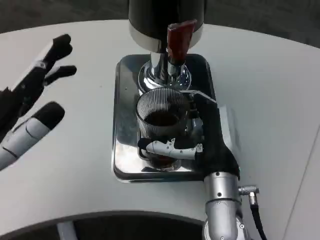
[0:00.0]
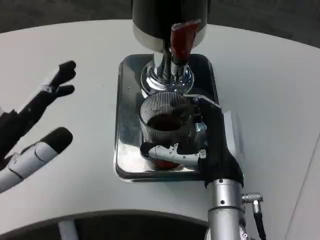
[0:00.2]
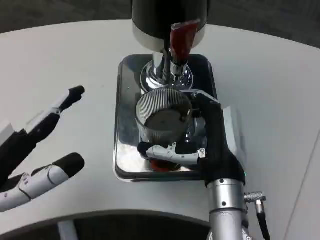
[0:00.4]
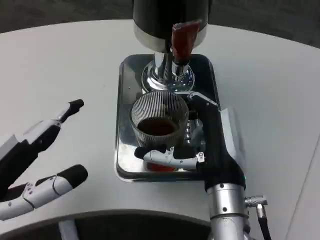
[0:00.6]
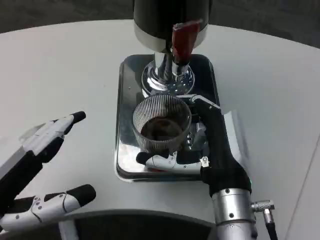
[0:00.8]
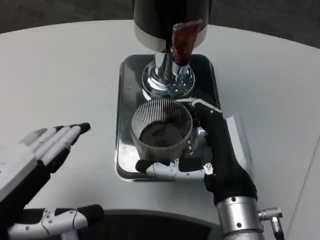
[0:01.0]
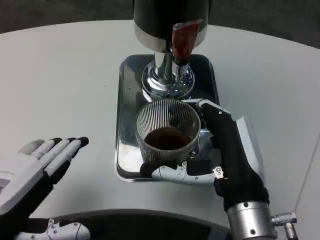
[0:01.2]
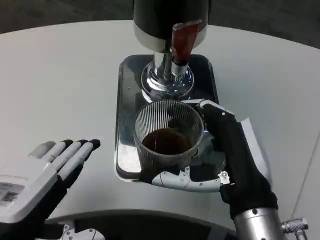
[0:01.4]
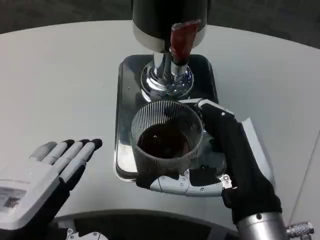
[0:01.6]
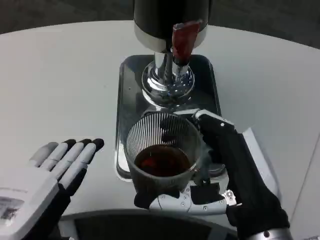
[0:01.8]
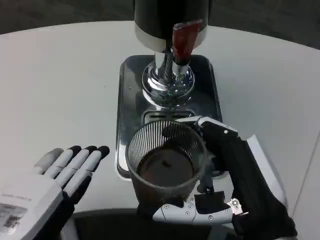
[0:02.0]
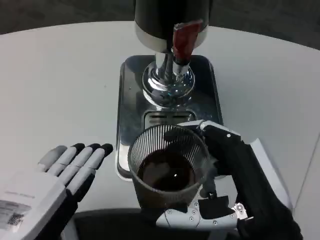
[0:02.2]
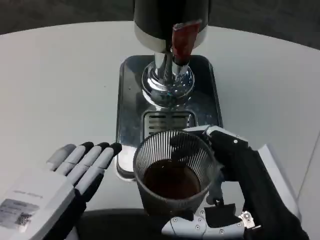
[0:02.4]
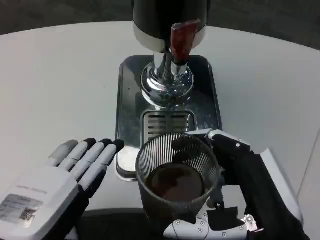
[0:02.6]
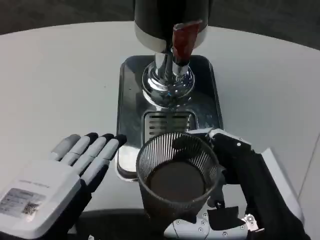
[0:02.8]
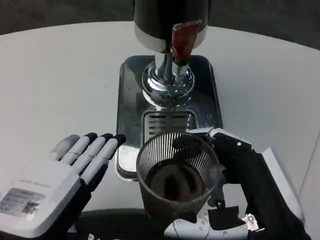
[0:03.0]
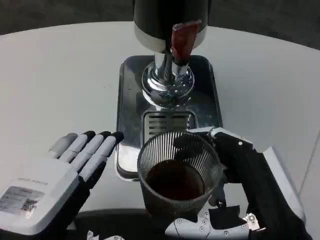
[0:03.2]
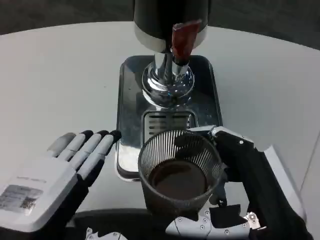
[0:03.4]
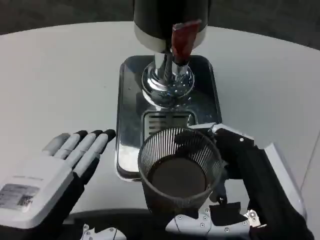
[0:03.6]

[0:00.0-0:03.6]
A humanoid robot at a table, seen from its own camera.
Task of the whole recording: Grasp the cup under the faucet to collect the drink, then remove the cup.
0:00.0 to 0:01.8: The left hand goes about 5 cm backward, while the right hand shifts roughly 10 cm backward.

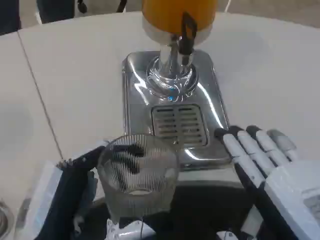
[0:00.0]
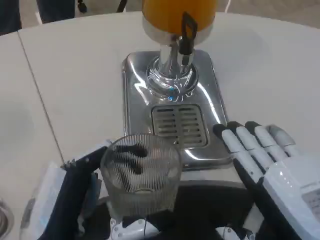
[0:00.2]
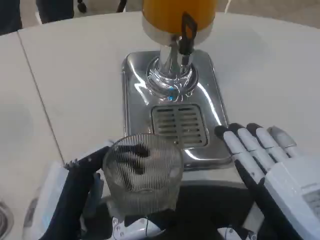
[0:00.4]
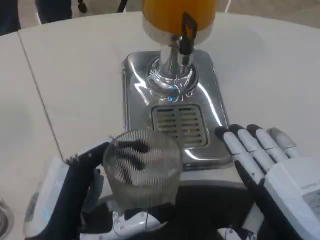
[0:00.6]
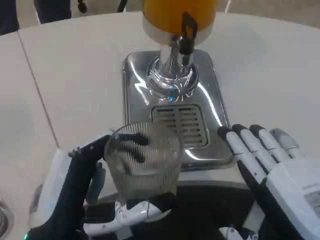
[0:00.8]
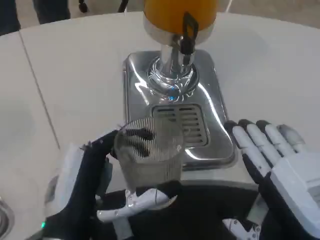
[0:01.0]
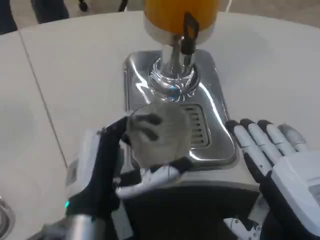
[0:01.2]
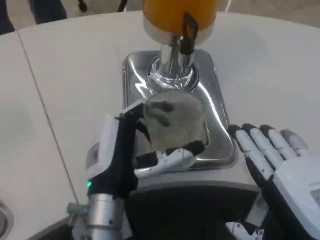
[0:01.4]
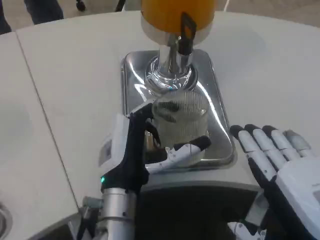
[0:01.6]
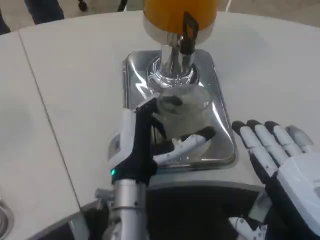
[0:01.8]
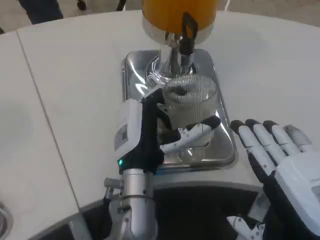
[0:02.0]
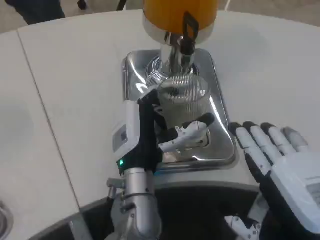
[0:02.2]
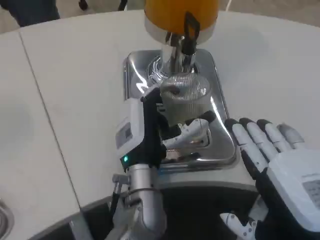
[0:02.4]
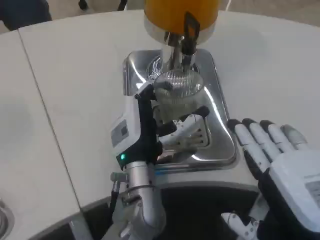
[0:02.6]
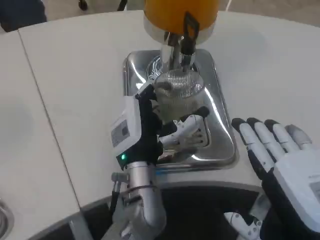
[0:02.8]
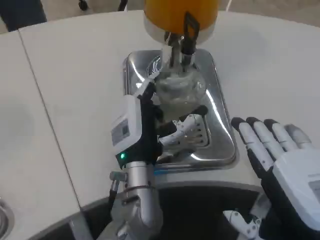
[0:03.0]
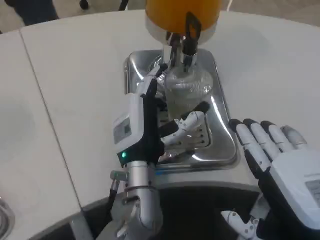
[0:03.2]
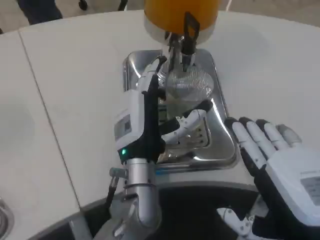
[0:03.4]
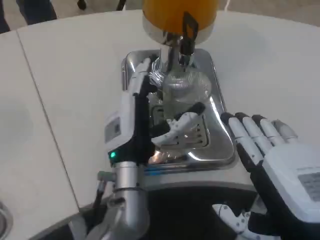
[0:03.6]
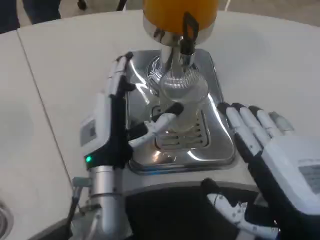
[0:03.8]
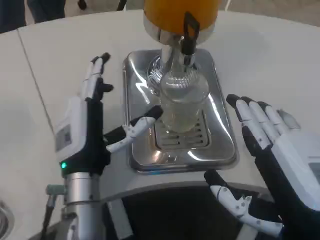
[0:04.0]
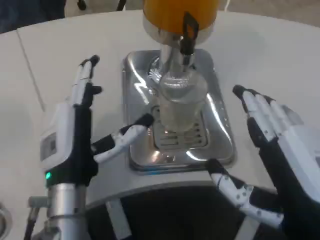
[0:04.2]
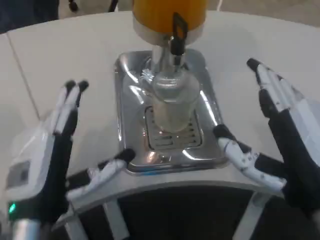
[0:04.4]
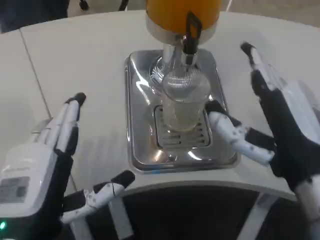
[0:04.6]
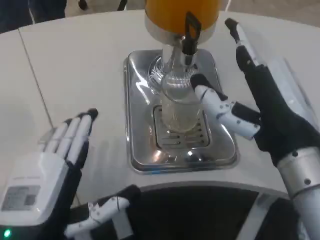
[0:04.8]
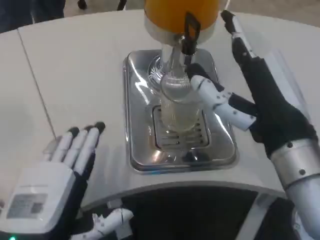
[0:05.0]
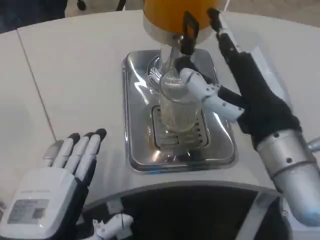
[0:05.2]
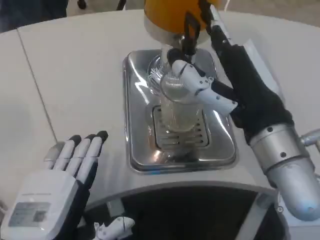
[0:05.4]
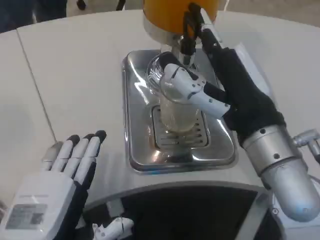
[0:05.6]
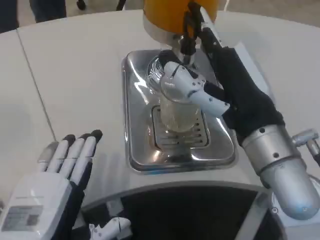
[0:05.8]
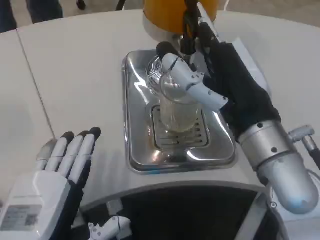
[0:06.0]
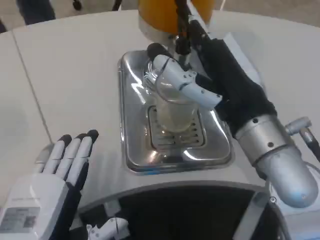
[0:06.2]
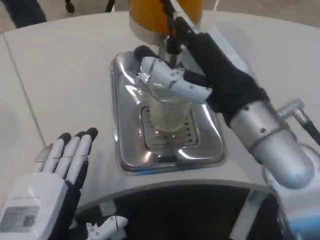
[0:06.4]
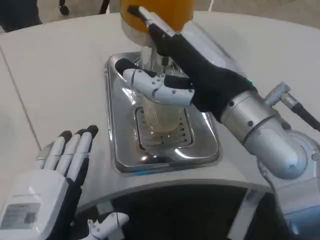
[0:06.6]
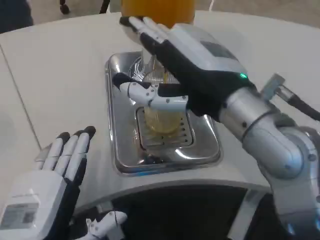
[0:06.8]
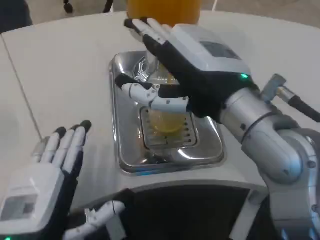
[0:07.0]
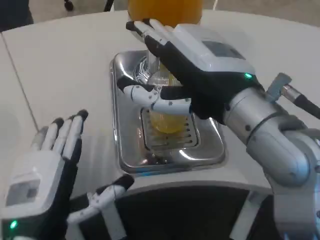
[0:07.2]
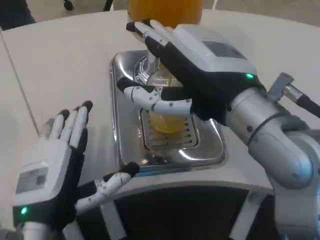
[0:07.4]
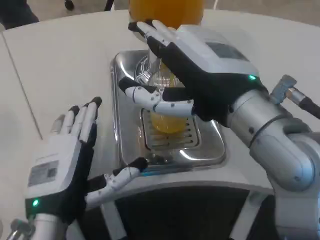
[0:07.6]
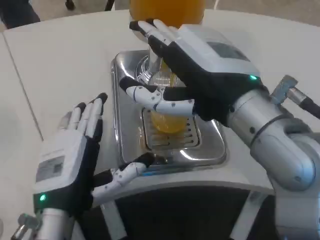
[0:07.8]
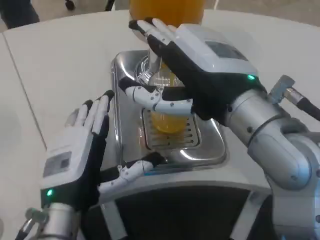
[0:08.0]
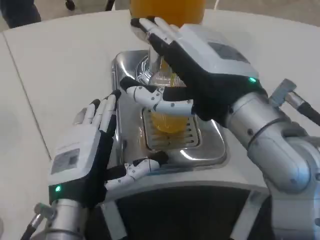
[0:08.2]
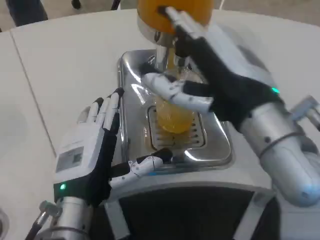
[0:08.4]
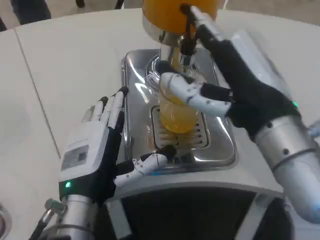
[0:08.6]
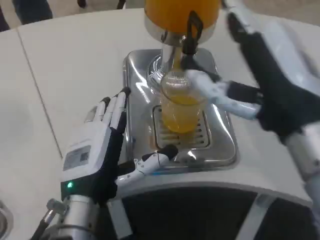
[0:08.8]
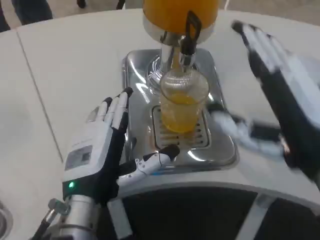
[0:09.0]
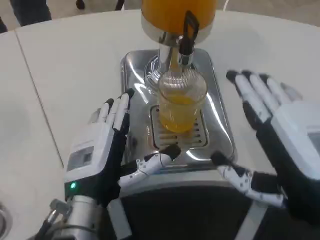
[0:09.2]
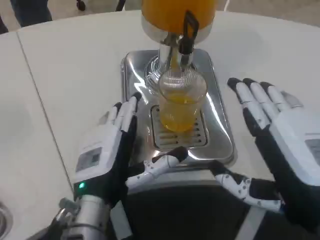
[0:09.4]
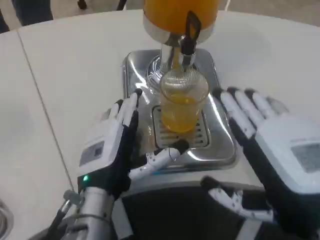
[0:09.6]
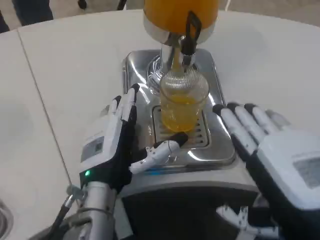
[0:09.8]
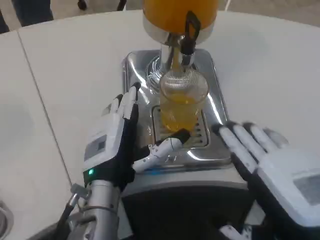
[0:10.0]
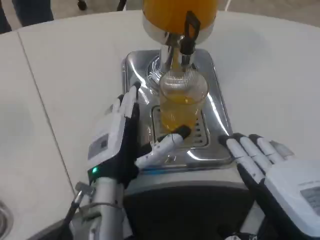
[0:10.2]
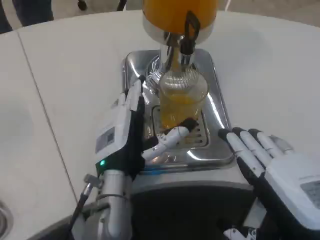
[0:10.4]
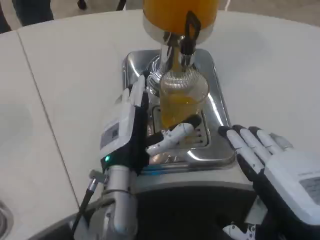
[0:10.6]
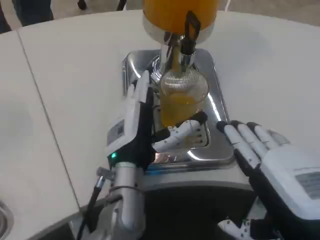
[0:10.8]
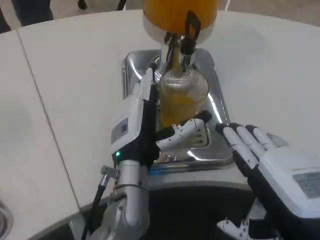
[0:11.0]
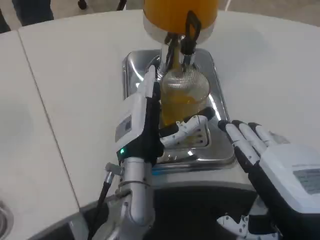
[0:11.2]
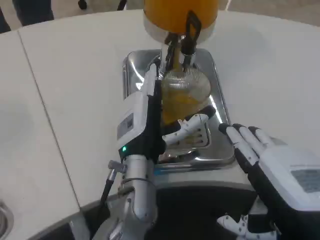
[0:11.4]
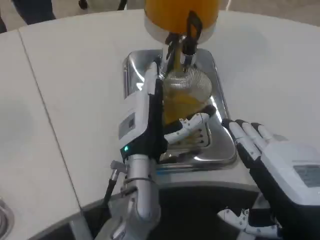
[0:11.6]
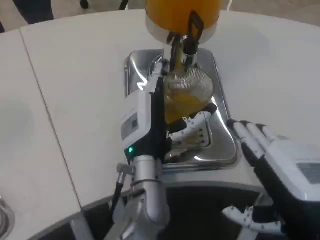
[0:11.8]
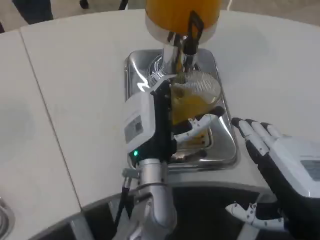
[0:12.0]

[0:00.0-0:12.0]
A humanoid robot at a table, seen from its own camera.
Task of the whole recording: Grasp the cup under the faucet to collect the drink, then remove the cup.
0:00.0 to 0:01.6: The left hand is displaced forward and to the right by about 15 cm.
0:01.6 to 0:03.0: The left hand moves forward, about 5 cm.
0:03.0 to 0:04.4: The left hand shifts about 20 cm to the left and backward.
0:04.4 to 0:06.0: The left hand heads backward, covering some 5 cm, while the right hand heads forward, covering roughly 10 cm.
0:06.0 to 0:07.6: The right hand shifts some 5 cm upward, while the left hand shifts approximately 5 cm forward.
0:07.6 to 0:09.0: The right hand heads to the right, backward and downward, covering roughly 10 cm.
0:09.0 to 0:10.4: The right hand changes place by about 5 cm, while the left hand changes place by roughly 5 cm.
0:10.4 to 0:12.0: The left hand is displaced to the right by about 5 cm.

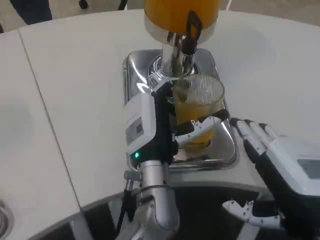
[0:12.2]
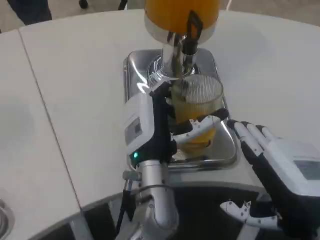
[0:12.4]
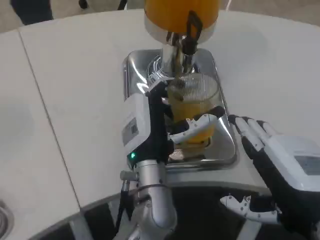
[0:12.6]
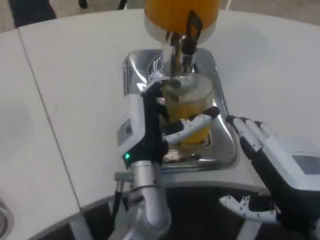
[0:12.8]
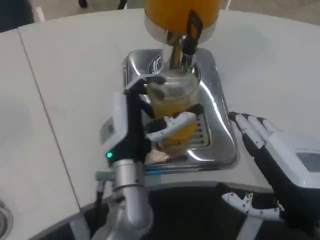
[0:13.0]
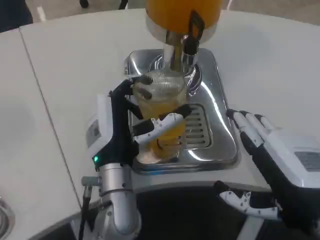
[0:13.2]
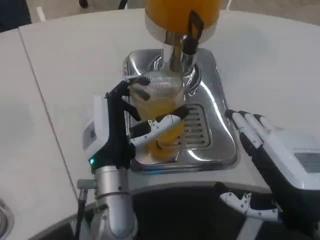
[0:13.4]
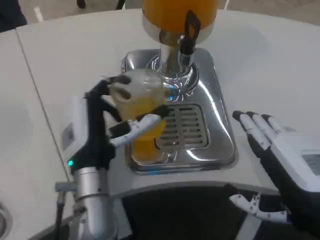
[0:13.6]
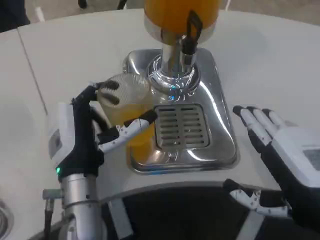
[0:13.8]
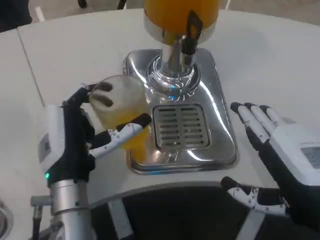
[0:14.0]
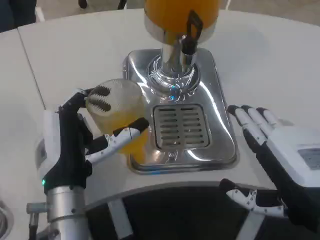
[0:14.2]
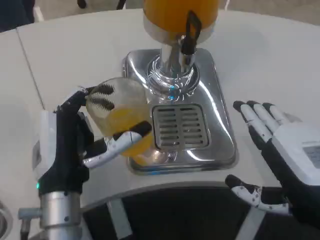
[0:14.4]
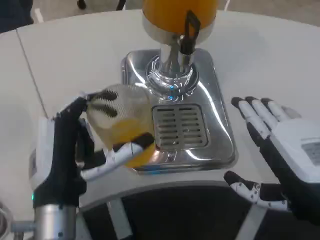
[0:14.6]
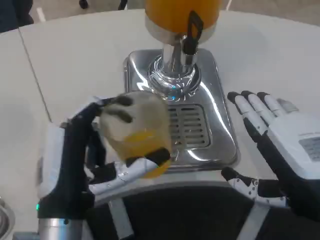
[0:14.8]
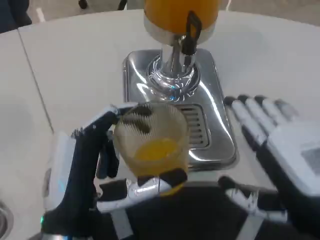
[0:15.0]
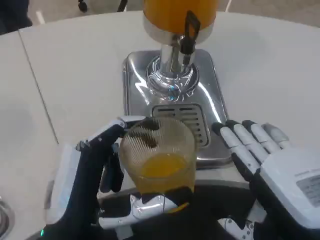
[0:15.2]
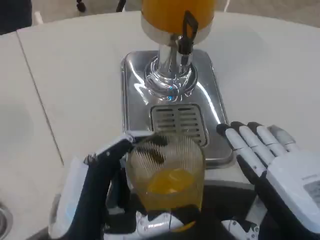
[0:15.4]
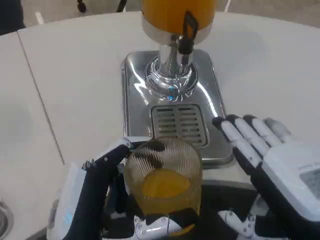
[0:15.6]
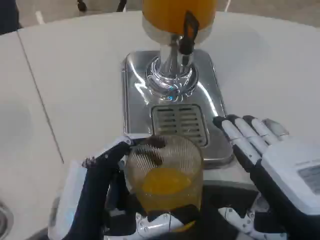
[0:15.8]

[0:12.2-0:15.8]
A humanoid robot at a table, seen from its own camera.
Task of the whole recording: Grasp the cup under the faucet to collect the drink, then remove the cup.
0:12.2 to 0:14.0: The left hand is displaced to the left by roughly 10 cm.
0:14.0 to 0:15.8: The left hand goes approximately 10 cm backward.

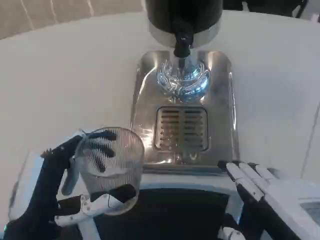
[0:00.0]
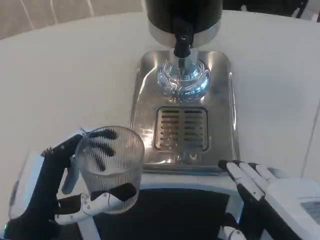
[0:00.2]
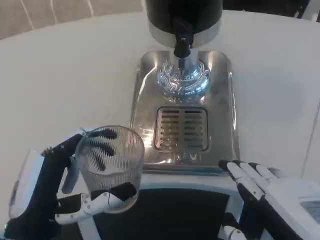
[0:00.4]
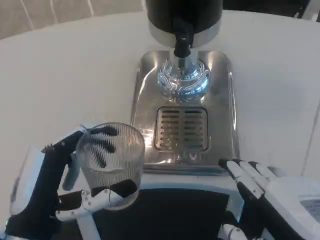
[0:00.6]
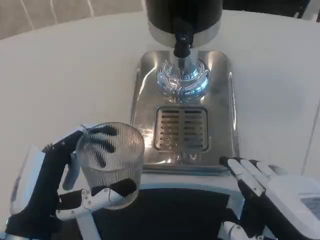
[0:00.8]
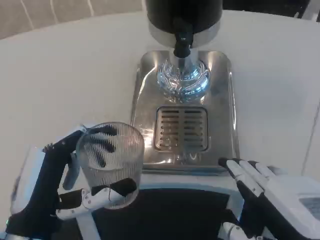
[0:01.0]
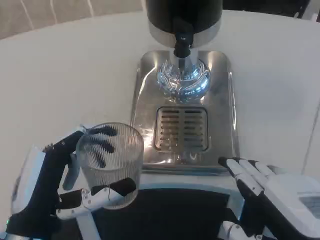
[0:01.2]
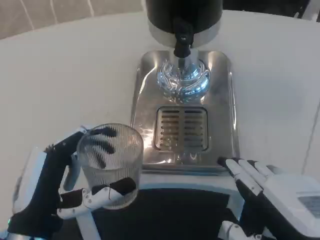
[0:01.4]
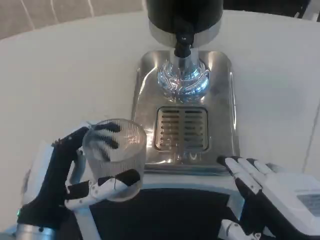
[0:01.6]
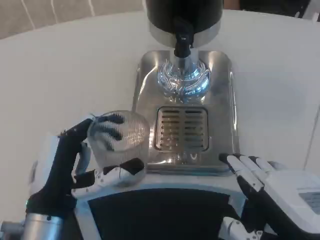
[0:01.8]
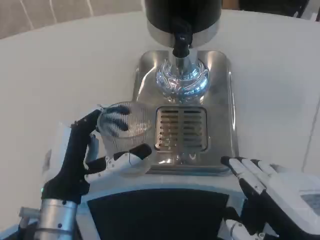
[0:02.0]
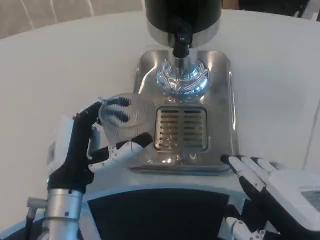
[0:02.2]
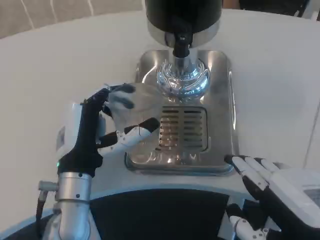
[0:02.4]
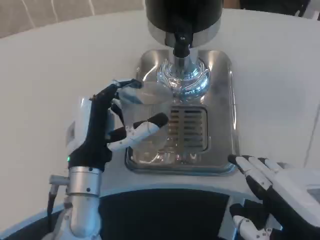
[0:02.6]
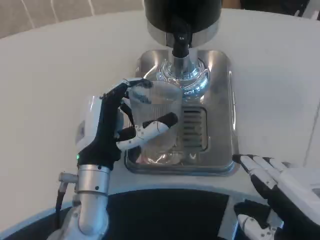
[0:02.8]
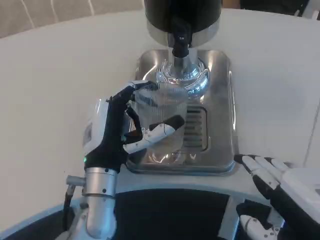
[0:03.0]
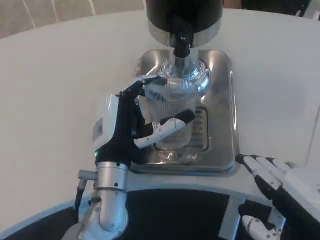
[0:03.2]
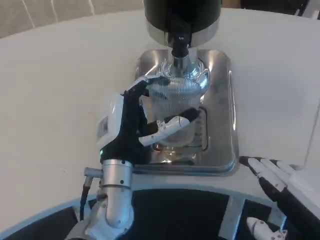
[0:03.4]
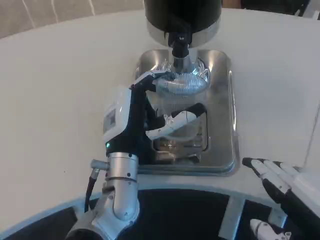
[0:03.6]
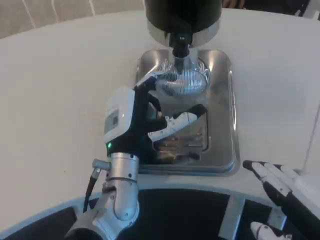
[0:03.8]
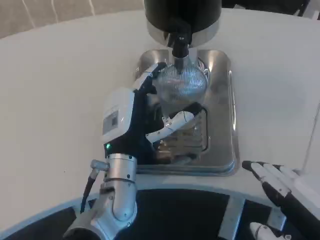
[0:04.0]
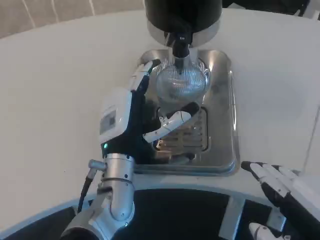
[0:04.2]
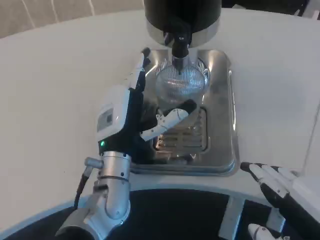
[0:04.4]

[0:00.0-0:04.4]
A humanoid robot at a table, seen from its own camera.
Task of the whole recording: Grasp the cup under the faucet to collect the drink, then remove the cup.
0:00.0 to 0:01.4: Both hands stay about where they are.
0:01.4 to 0:03.0: The left hand heads forward and to the right, covering about 15 cm.
0:03.0 to 0:04.4: The hands make only small movements.
